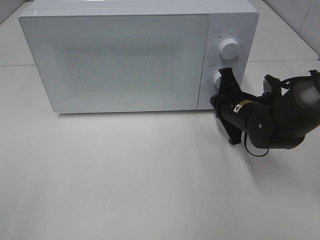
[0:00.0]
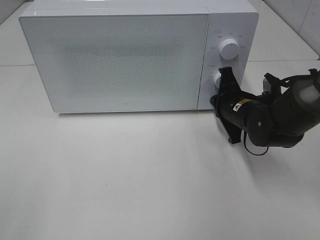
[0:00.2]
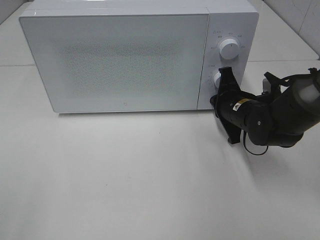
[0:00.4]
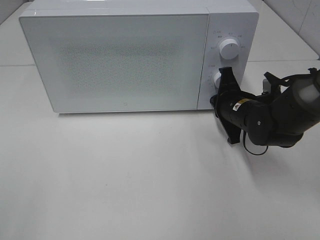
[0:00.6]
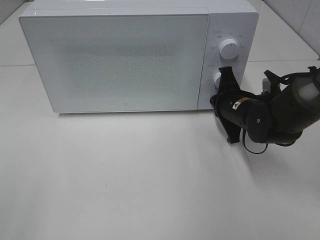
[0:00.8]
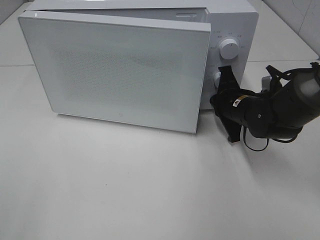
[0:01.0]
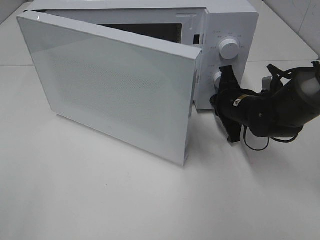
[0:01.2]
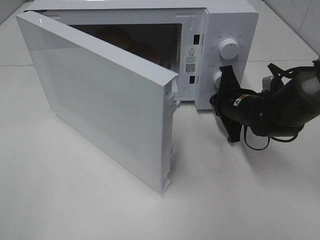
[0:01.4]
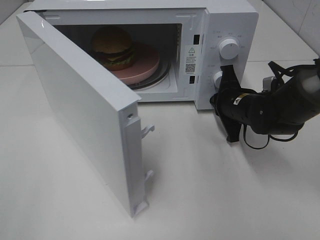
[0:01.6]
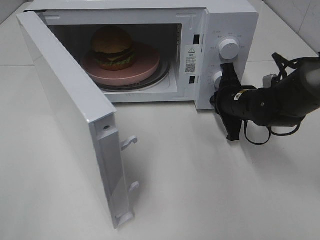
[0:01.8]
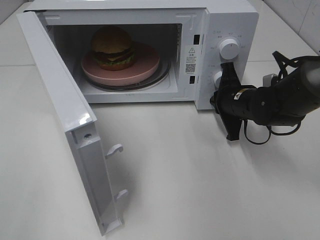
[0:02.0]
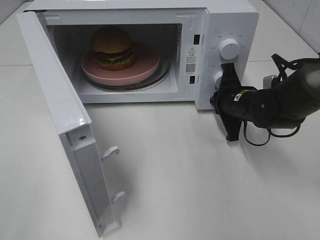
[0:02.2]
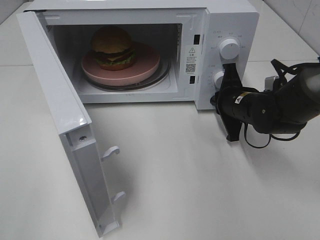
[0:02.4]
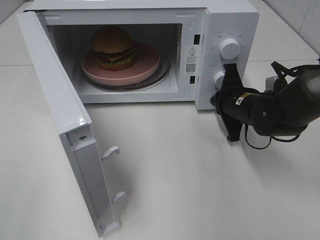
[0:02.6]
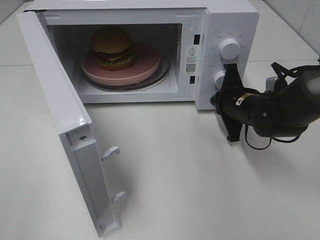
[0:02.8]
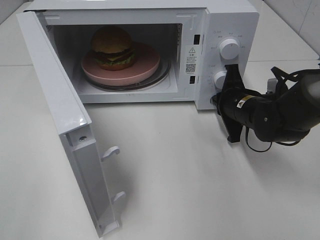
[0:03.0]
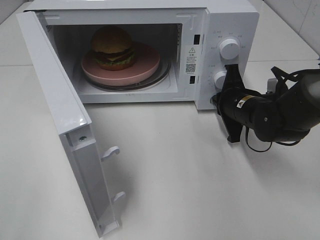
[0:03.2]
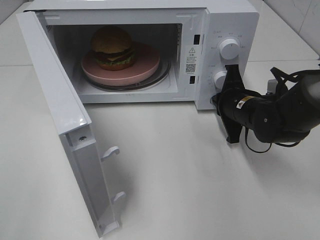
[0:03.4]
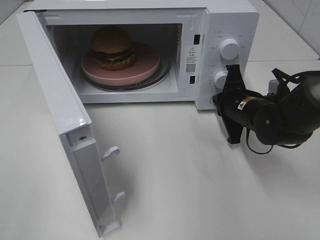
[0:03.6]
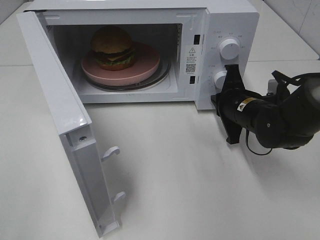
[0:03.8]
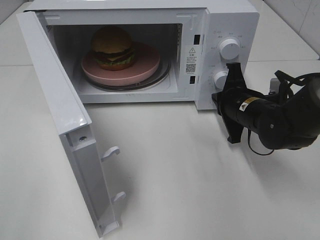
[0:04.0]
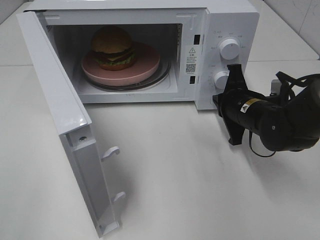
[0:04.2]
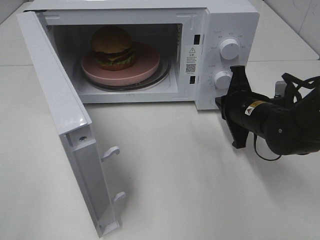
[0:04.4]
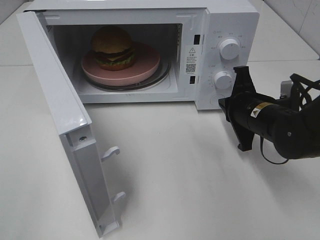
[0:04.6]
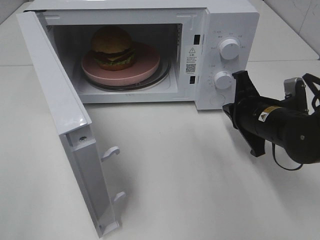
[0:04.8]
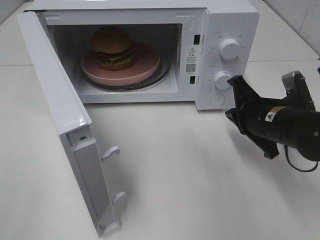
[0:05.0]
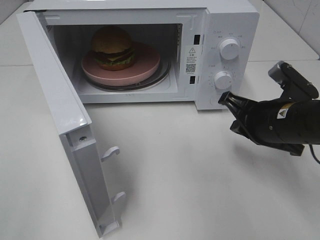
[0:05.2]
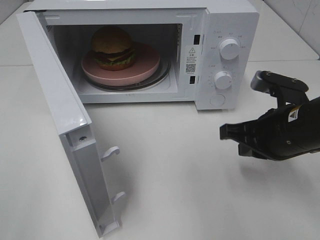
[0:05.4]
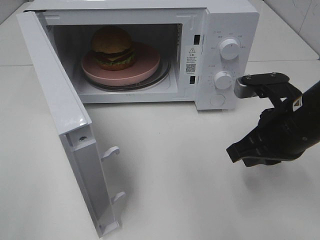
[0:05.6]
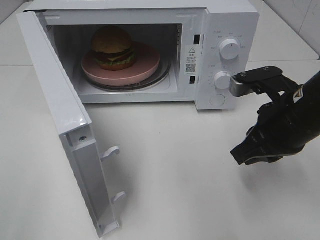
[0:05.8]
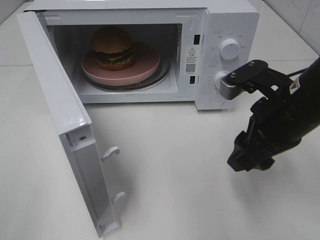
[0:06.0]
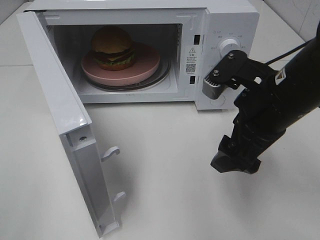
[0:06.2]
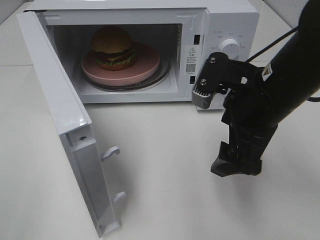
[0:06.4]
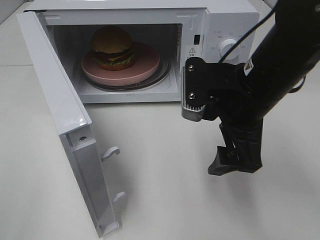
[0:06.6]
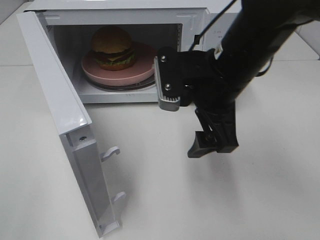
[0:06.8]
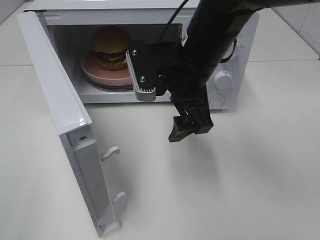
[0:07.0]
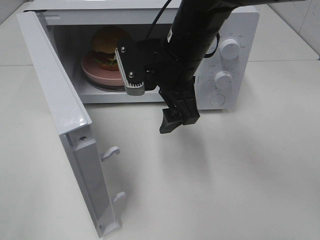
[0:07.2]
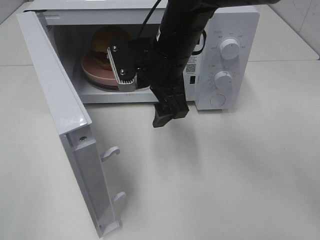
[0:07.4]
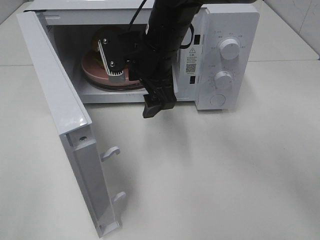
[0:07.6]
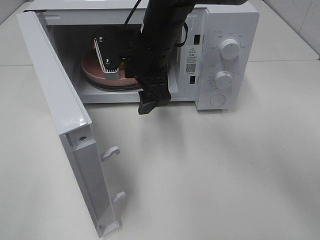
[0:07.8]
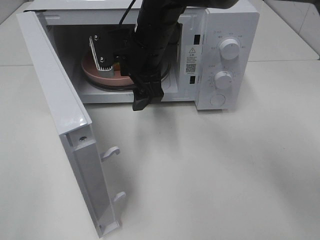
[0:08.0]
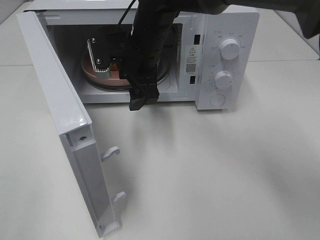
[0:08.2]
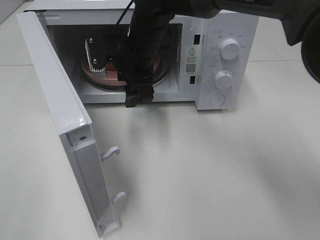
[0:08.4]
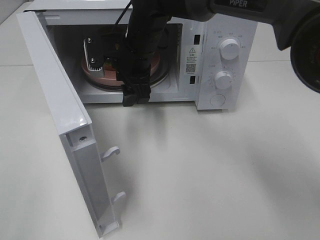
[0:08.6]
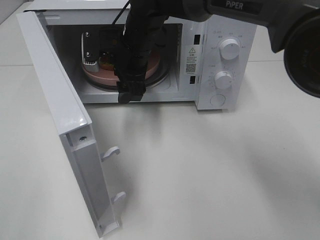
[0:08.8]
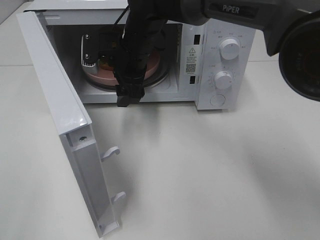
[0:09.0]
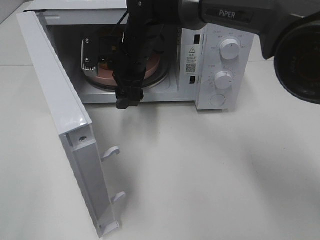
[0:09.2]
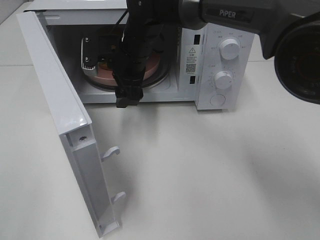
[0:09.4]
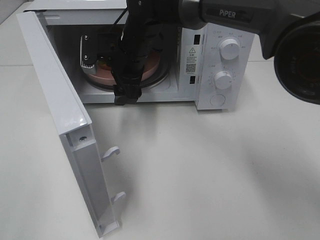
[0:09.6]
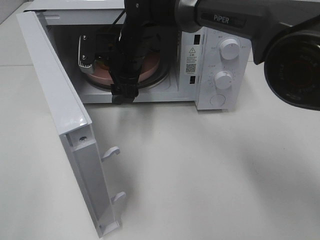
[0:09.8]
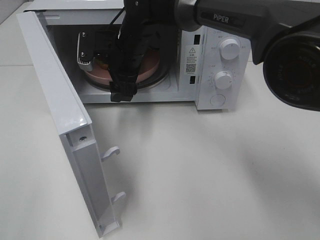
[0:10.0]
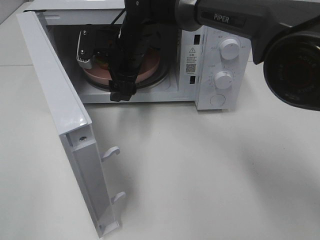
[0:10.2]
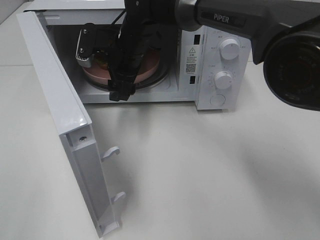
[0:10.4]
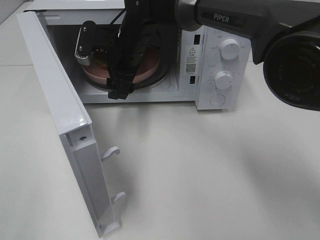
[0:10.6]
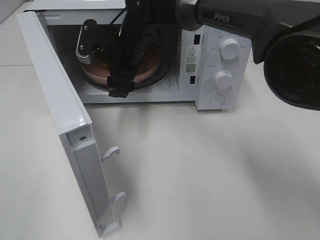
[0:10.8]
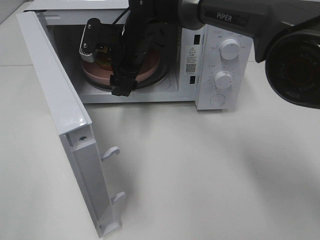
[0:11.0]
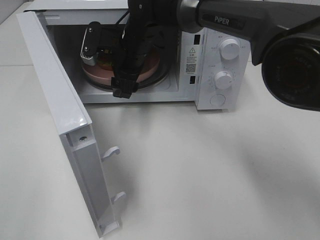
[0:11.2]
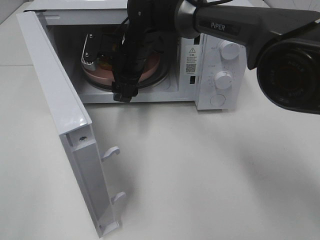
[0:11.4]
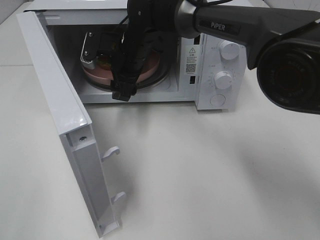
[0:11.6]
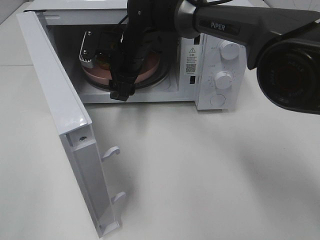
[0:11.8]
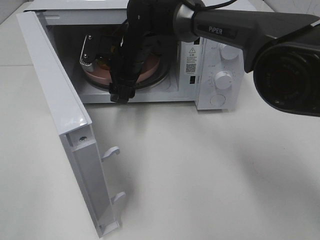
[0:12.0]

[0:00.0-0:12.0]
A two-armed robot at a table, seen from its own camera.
Task of the whole recording: Heat the burger.
Step, 0:00.0 to 0:04.0: Right hand: press the switch.
0:03.0 to 0:04.4: The grippers move only a little.
0:04.4 to 0:06.0: The right gripper heads upward and backward, covering some 15 cm, and opens its fingers.
0:06.0 to 0:07.6: The right gripper is displaced to the left and forward by about 20 cm.
0:07.6 to 0:09.0: The right gripper moves roughly 5 cm.
0:09.0 to 0:12.0: The grippers stay close to where they were, moving slightly.

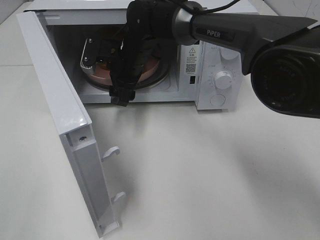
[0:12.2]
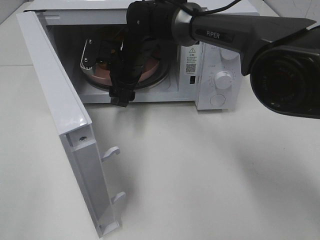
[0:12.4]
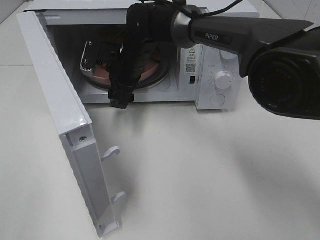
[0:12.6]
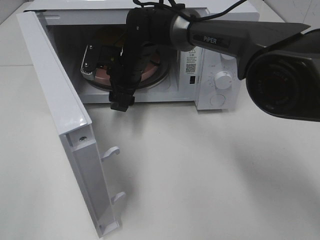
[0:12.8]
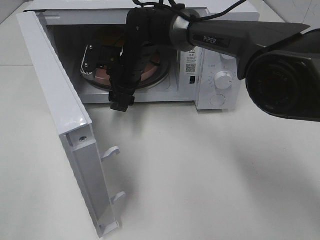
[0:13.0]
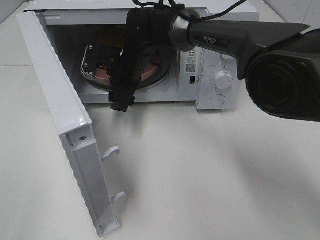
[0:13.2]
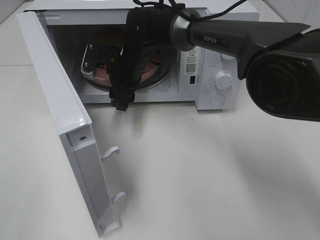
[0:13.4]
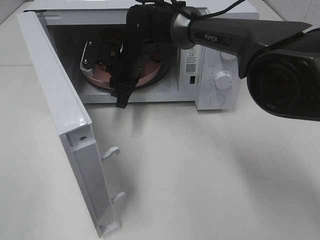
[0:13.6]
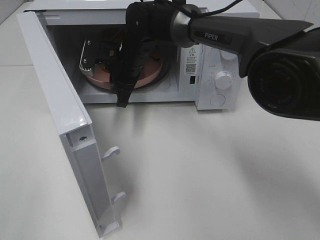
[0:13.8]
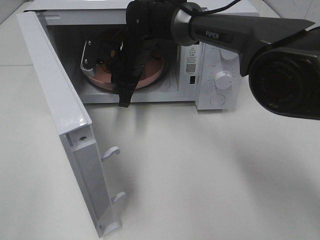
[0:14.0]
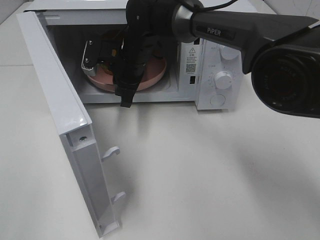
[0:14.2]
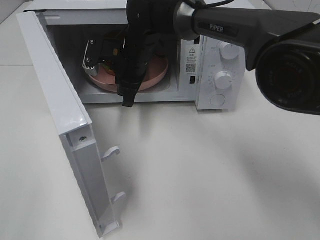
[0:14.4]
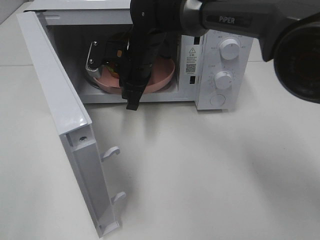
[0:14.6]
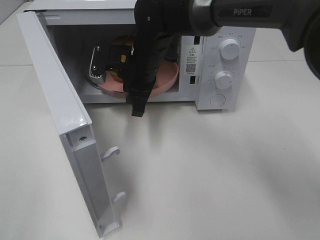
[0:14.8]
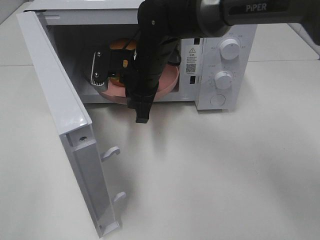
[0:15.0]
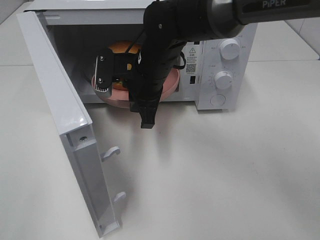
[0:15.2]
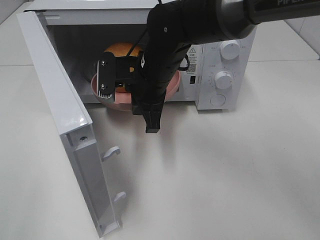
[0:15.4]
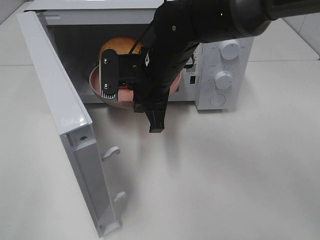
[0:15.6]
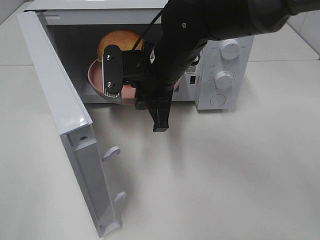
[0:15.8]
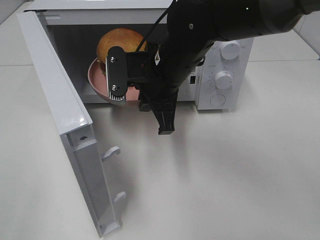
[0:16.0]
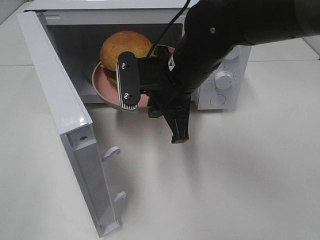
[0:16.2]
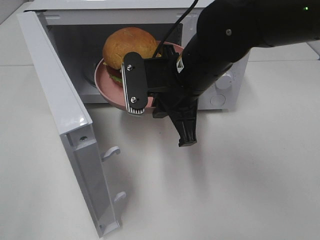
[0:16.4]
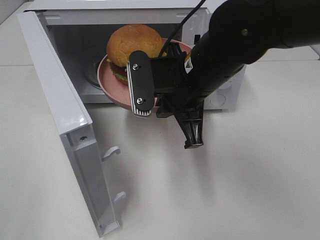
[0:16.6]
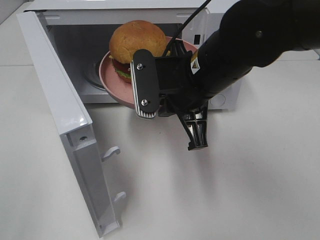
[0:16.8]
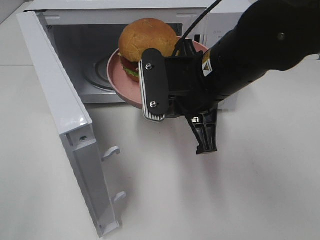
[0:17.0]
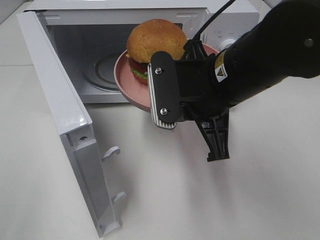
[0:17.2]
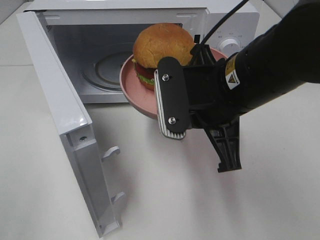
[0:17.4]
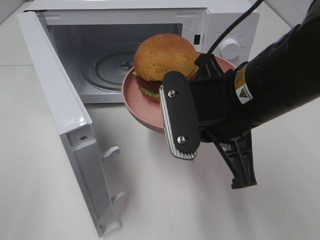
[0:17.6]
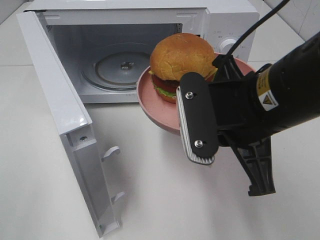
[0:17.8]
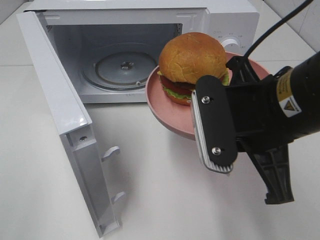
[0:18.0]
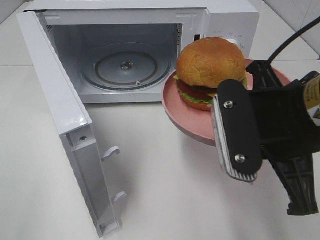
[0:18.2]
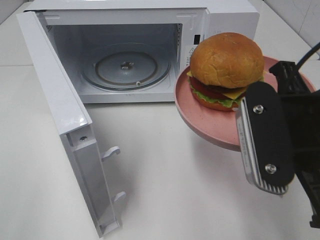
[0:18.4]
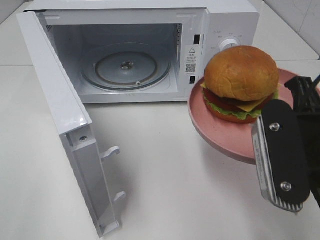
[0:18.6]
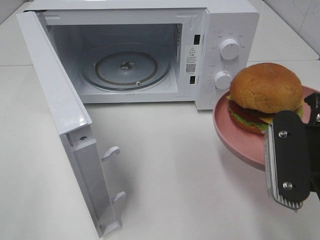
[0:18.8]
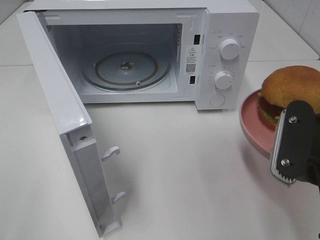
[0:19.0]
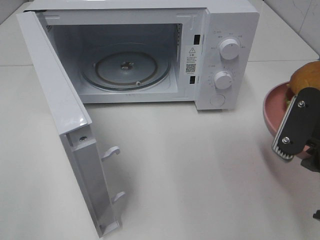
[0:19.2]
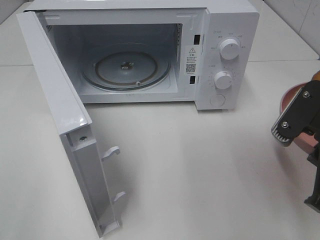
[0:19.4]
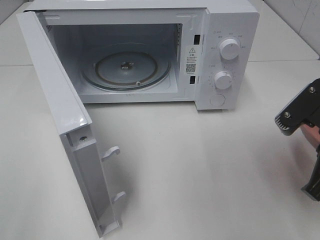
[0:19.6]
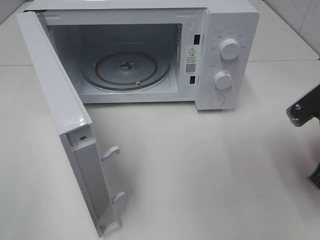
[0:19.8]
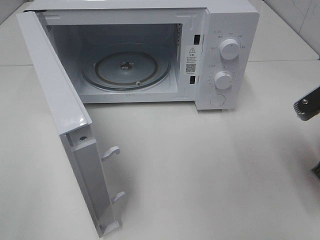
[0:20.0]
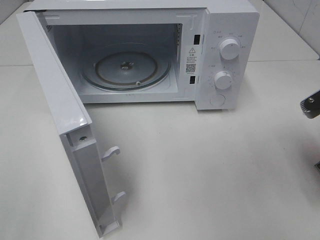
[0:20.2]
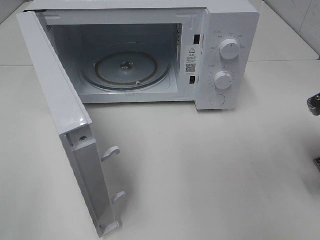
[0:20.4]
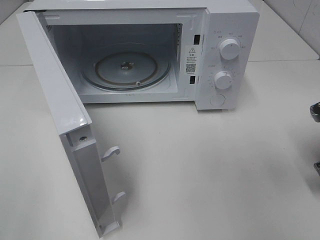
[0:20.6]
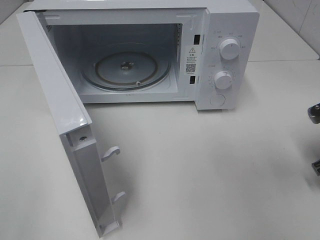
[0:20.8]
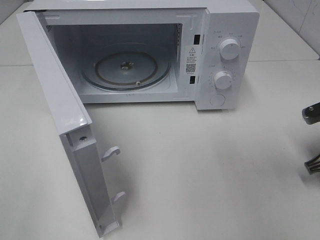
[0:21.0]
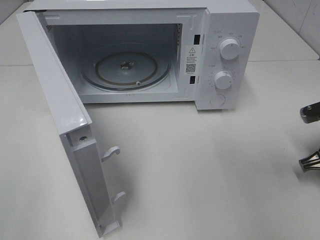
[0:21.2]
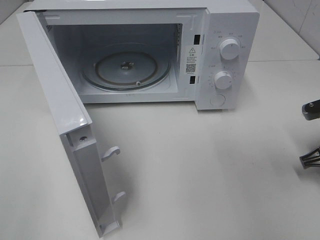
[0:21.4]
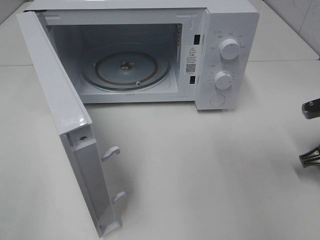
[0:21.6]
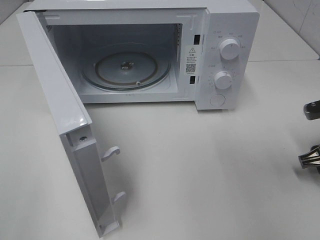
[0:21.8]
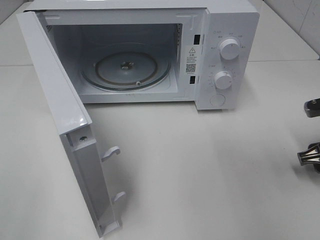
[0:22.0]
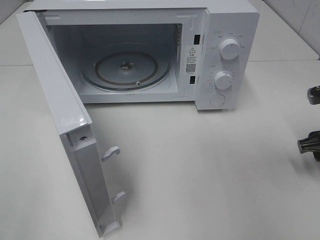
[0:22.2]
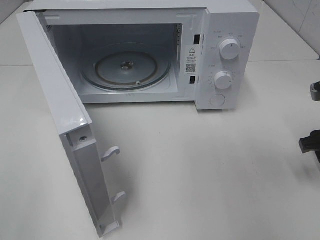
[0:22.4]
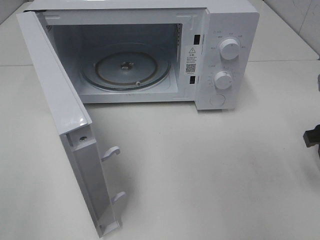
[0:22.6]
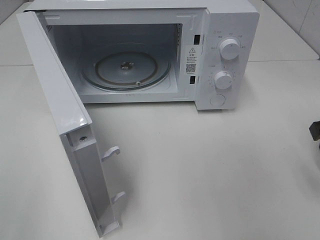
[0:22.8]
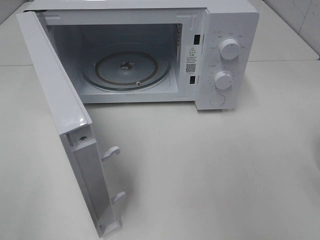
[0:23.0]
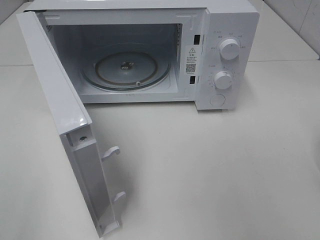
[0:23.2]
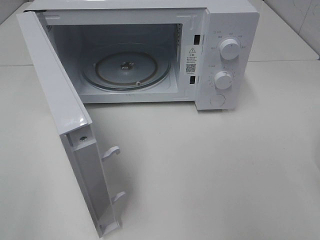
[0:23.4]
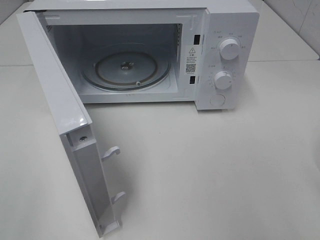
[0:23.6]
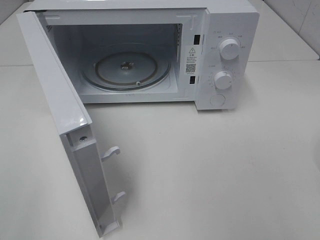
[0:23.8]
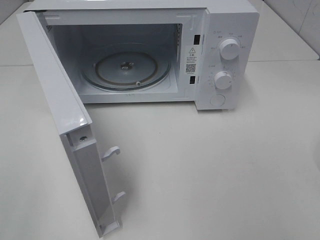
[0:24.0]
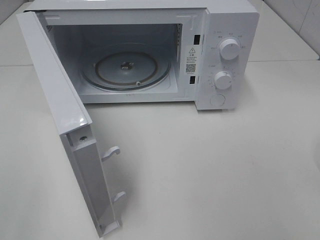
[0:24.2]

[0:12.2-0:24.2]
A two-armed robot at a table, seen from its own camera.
Task of the whole recording: Heat the burger.
Step, 0:13.8 to 0:21.4: Right hand: place the plate on the table.
0:12.2 to 0:13.8: The right gripper closes up.
0:13.8 to 0:15.2: The right gripper shifts approximately 10 cm backward.
0:15.2 to 0:16.6: The right gripper heads backward and to the right, covering approximately 10 cm.
0:16.6 to 0:18.2: The right gripper goes some 15 cm backward and to the right.
0:18.2 to 0:19.8: The right gripper heads to the right and downward, covering some 15 cm.
0:19.8 to 0:21.2: The right gripper shifts approximately 10 cm downward, forward and to the right.
0:21.2 to 0:22.6: The right gripper goes about 10 cm upward, and opens up.
0:22.6 to 0:24.2: The right gripper heads backward and upward, covering about 25 cm.
